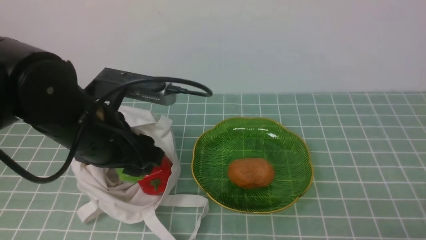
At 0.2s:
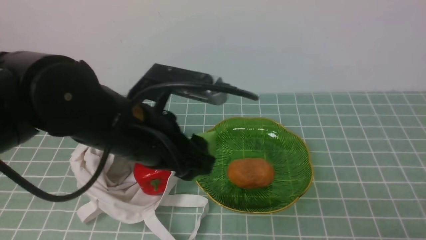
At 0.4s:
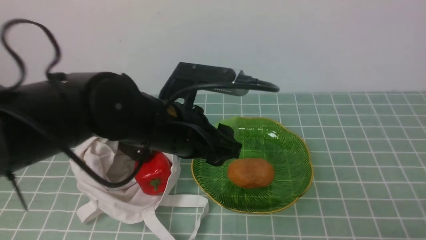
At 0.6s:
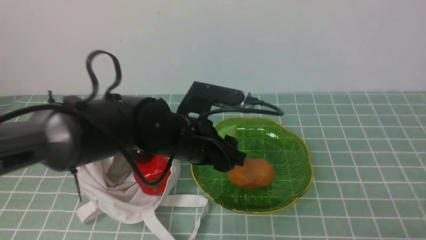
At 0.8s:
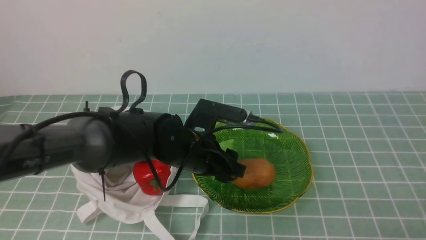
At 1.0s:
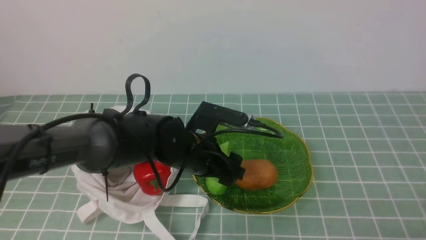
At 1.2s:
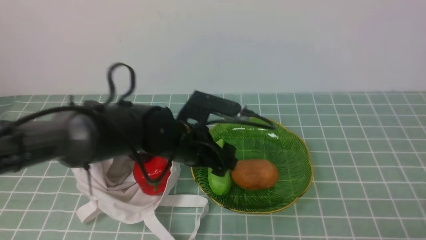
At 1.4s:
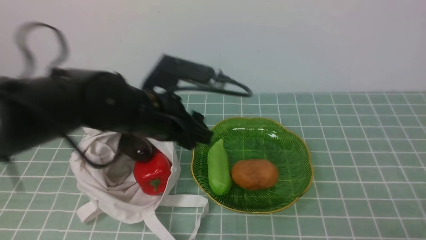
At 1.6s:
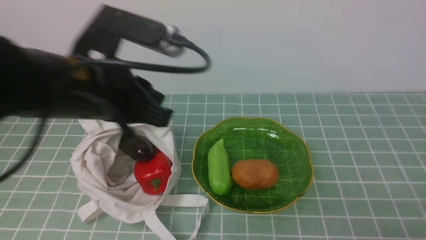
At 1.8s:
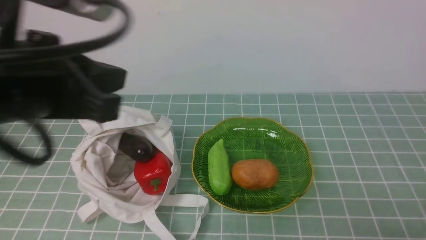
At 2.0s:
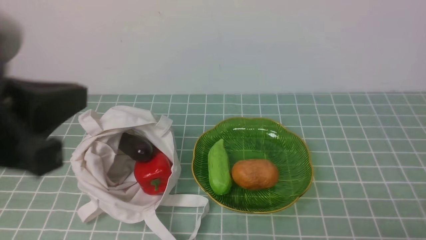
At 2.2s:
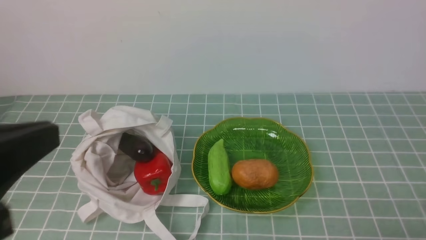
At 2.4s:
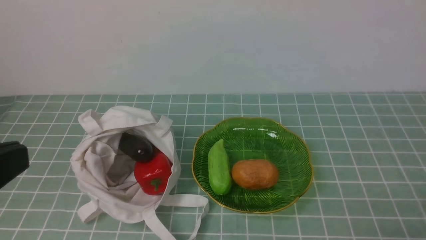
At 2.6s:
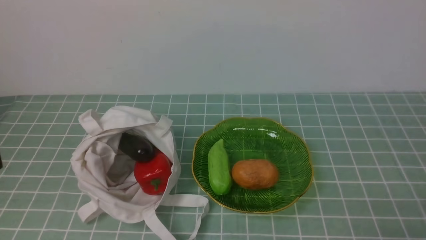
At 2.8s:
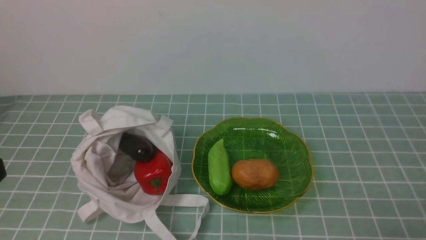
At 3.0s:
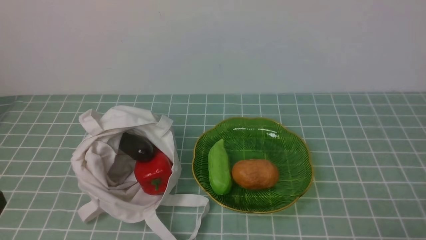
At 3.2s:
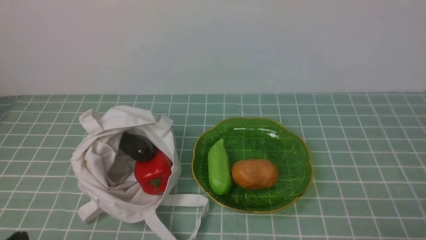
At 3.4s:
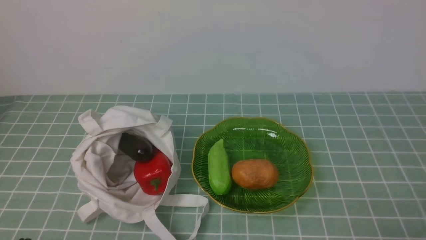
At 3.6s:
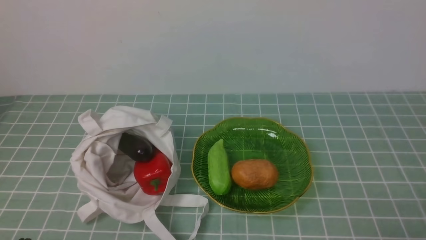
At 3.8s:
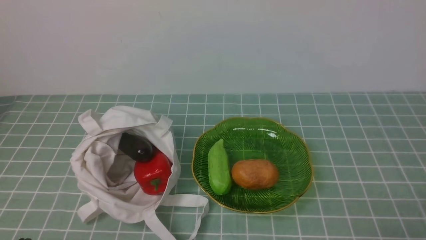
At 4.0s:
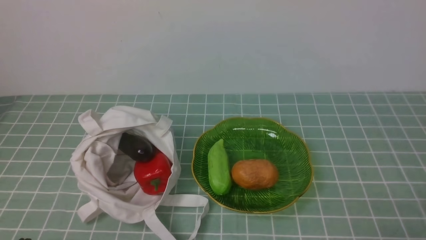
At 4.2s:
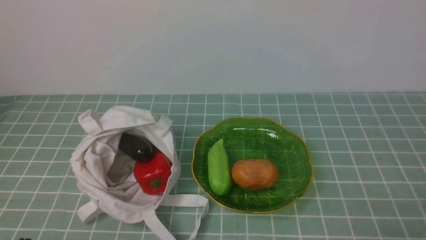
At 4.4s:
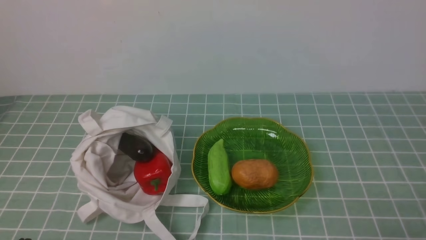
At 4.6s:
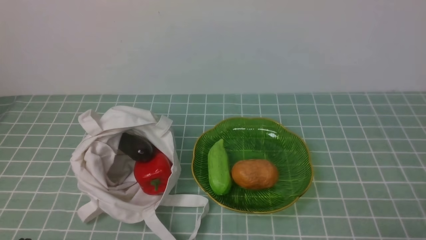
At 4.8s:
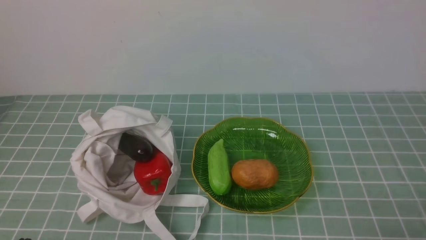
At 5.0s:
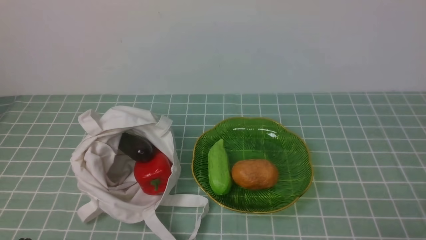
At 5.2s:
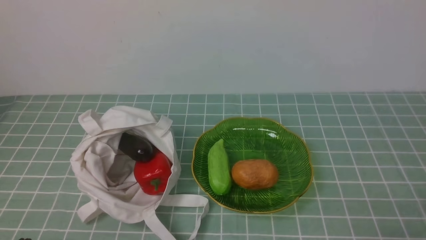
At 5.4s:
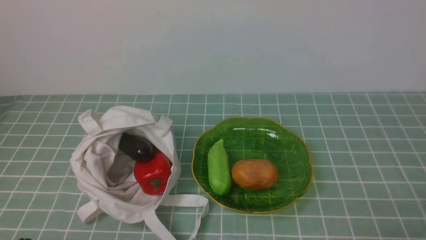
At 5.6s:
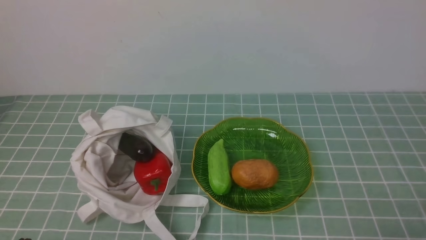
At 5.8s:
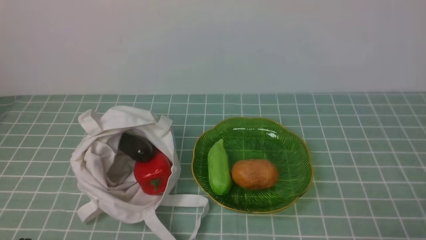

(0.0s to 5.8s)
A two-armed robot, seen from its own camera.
Task of the whole recording: take vegetables from cloth bag on blue coffee tablecloth place on plate.
Step, 0.0s - 1.2s: Place the bitter melon on the plate with left gripper.
0.0s - 1.4s: The left gripper travels downward and back again, approximately 10 cm each way.
1.4s - 2.8s: The left gripper is displaced backward and to the left by about 30 cm, and closes up.
4.4s - 5.8s: Neither gripper changes place.
